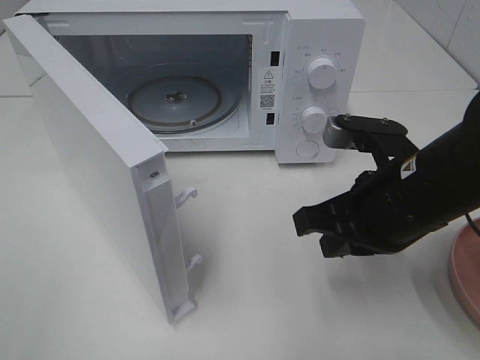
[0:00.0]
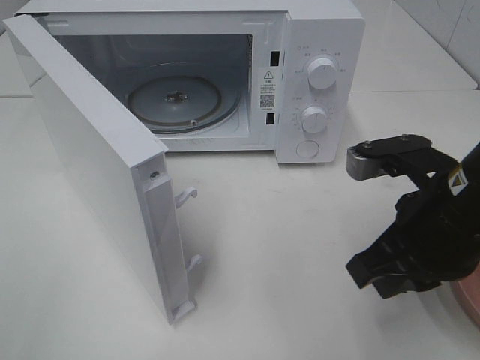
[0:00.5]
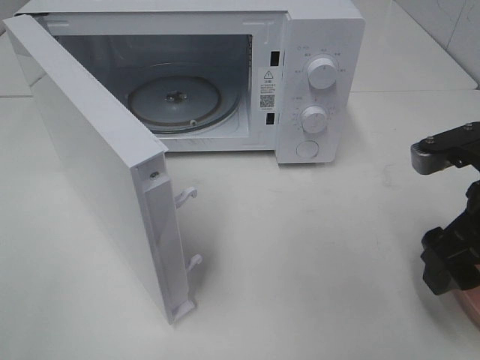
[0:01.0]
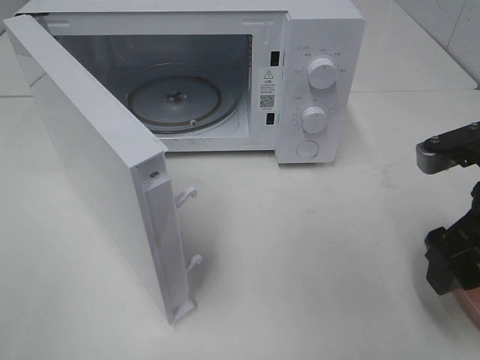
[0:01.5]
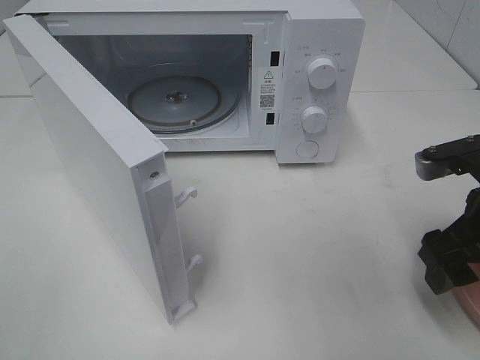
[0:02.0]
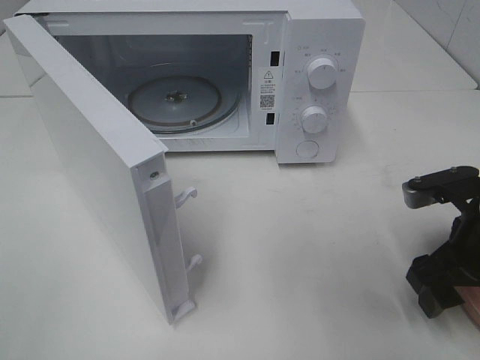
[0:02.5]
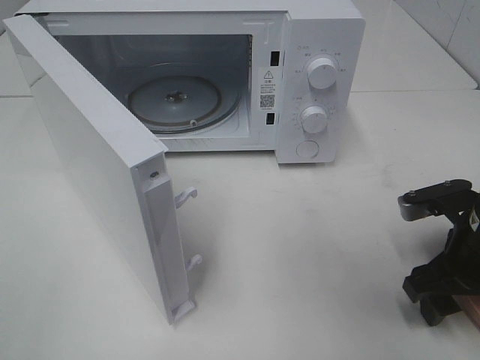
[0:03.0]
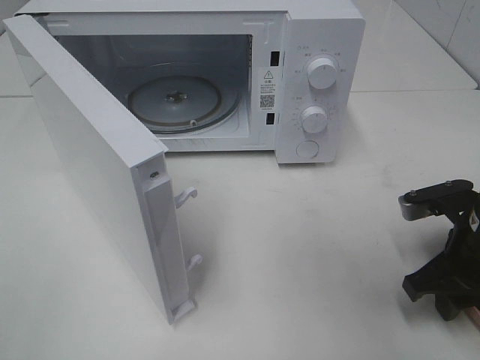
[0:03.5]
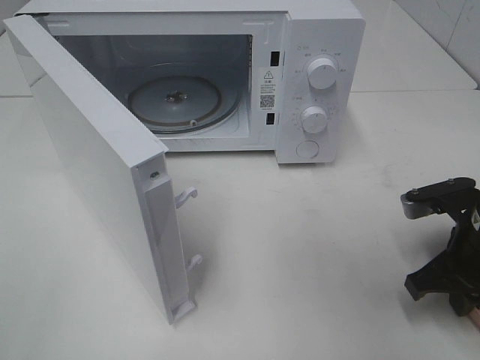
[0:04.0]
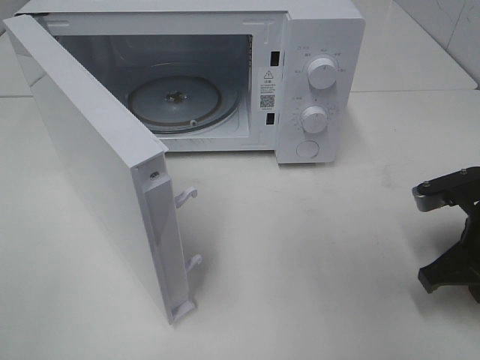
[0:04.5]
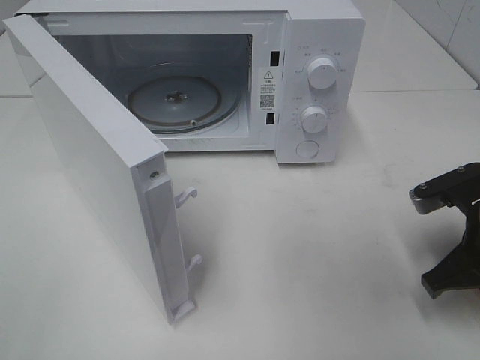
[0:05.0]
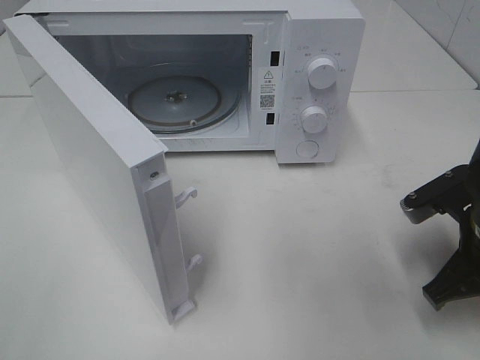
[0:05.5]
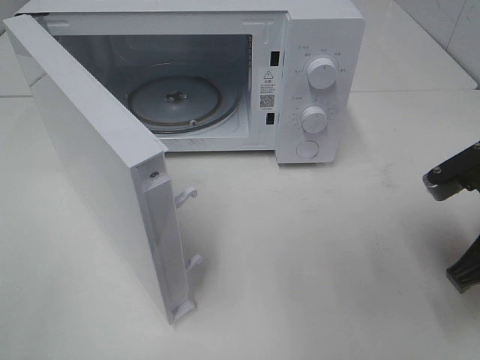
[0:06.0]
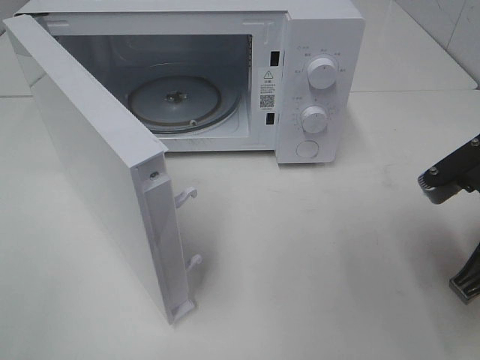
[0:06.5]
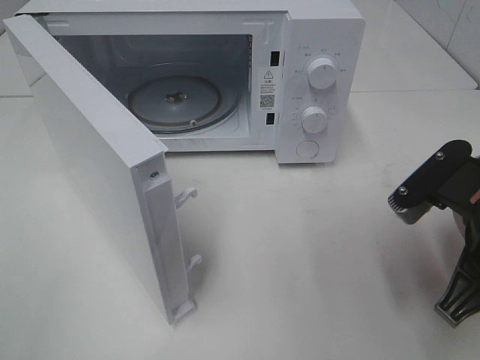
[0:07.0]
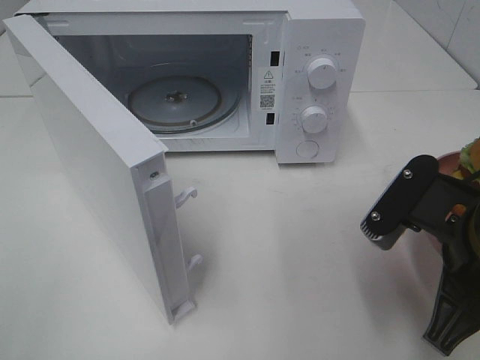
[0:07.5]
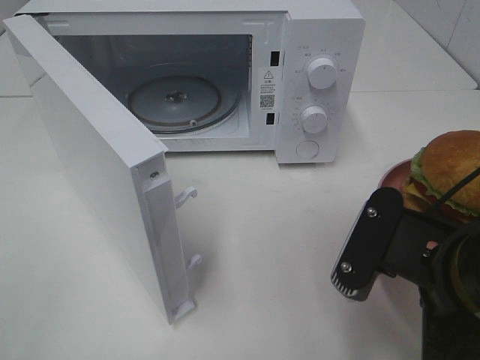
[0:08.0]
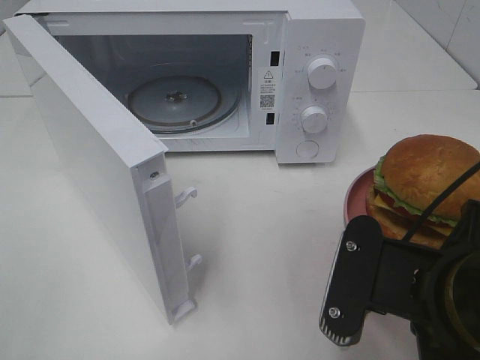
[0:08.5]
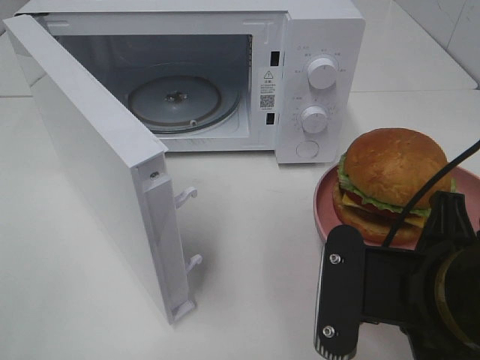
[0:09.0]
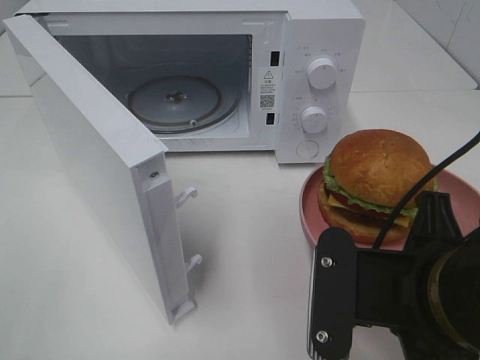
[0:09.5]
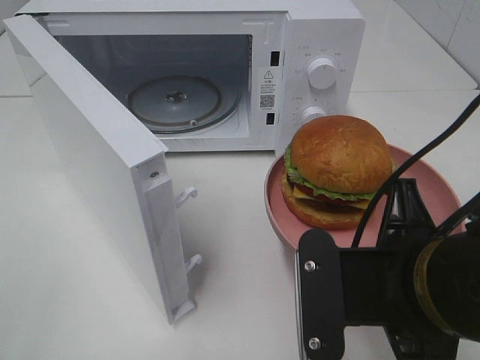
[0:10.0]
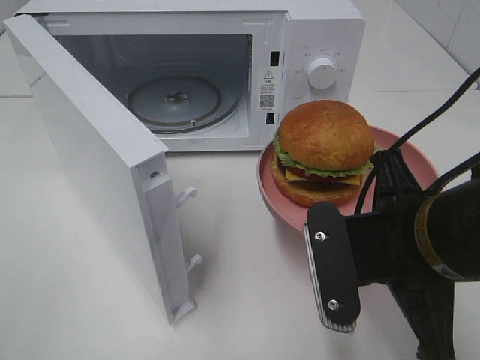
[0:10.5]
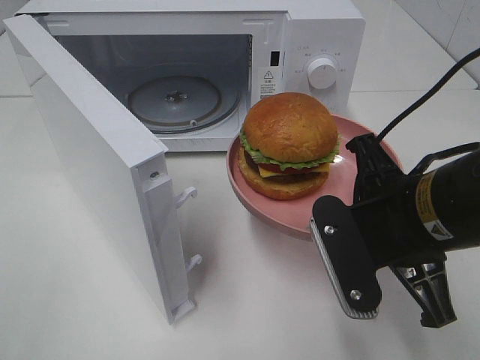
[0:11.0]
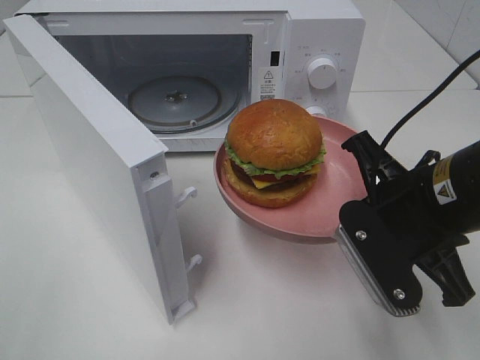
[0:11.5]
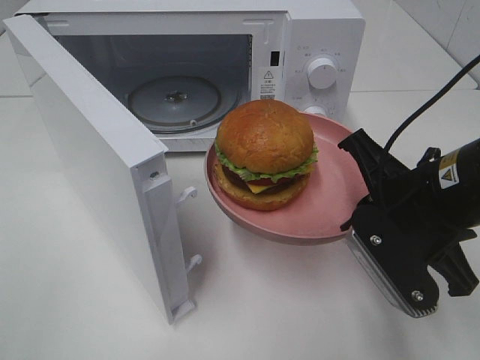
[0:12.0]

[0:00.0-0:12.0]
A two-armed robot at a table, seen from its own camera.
Task of the whole recording: Heat the burger.
Step, 0:00.0 to 0:04.0: Right hand: grab the plate with the hamburger.
0:00.0 to 0:02.0: The right gripper travels to the right by roughly 10 cm, and opens its fingers.
0:02.0 to 0:04.0: The right gripper moves downward, some 5 cm, and closes.
0:04.0 to 0:06.0: The right gripper moves upward, approximately 5 cm.
0:06.0 to 0:08.0: The right gripper is displaced to the left and backward by about 10 cm.
0:10.0 to 0:12.0: The right gripper heads forward, covering approximately 10 cm.

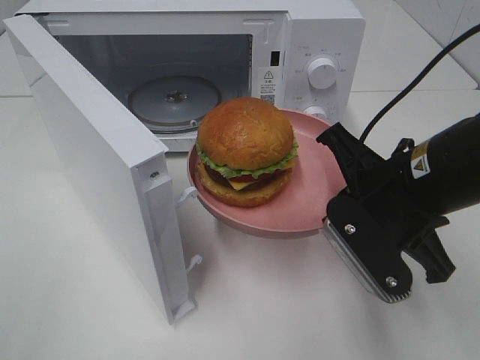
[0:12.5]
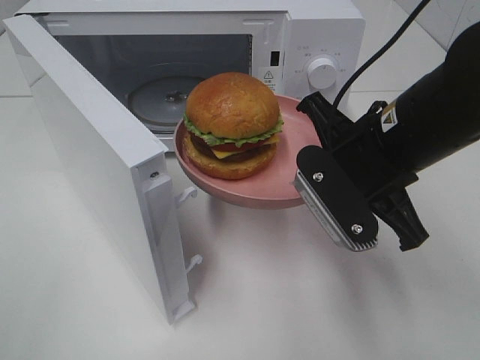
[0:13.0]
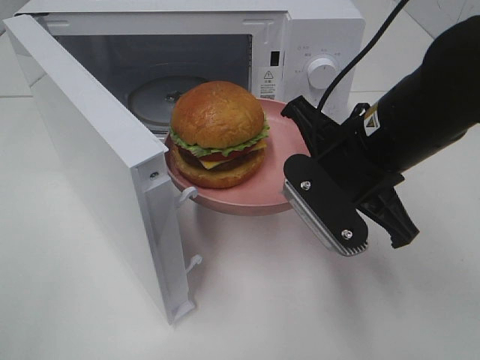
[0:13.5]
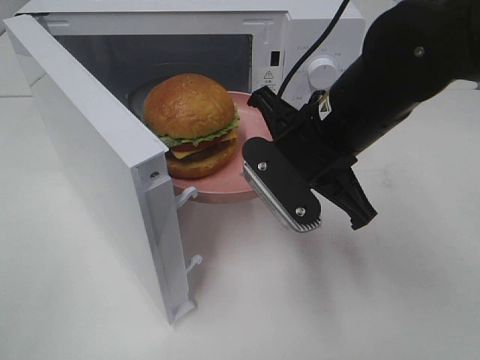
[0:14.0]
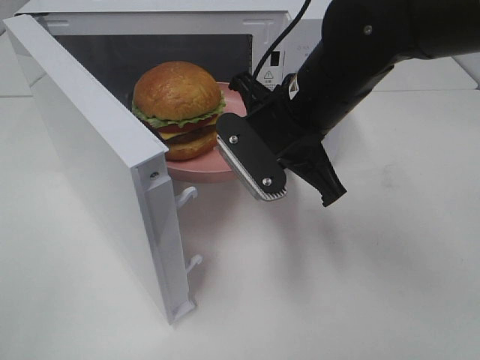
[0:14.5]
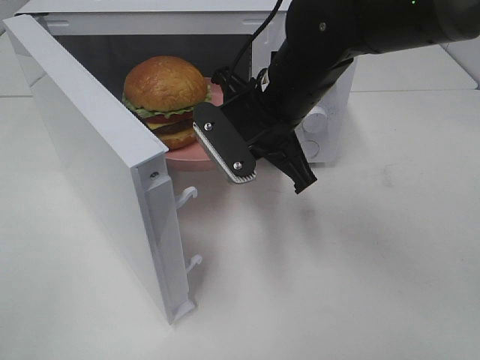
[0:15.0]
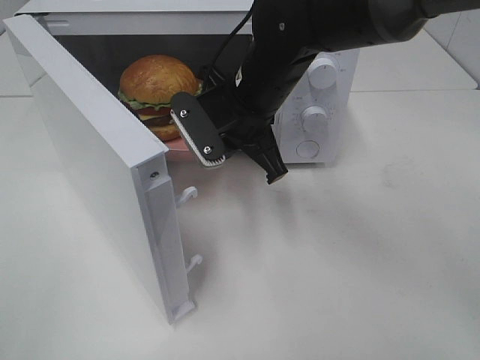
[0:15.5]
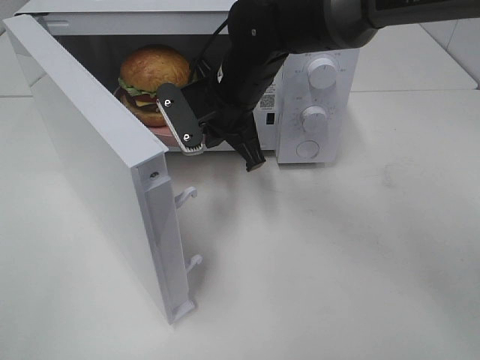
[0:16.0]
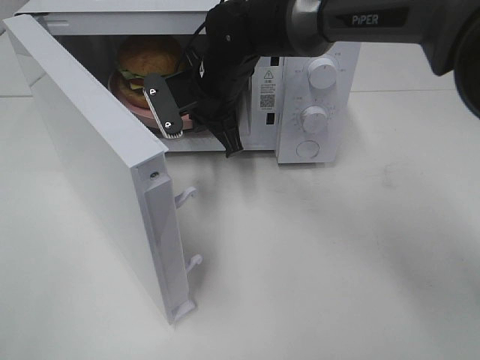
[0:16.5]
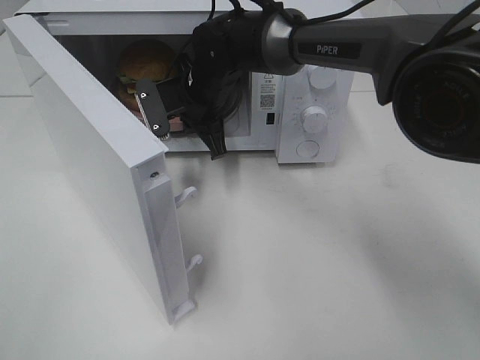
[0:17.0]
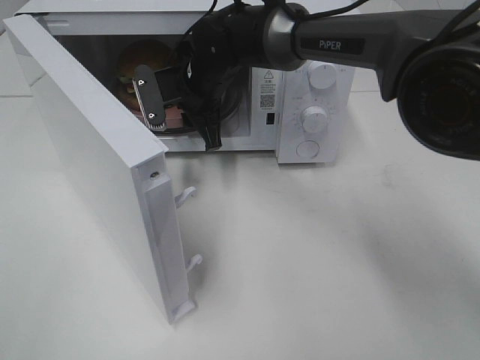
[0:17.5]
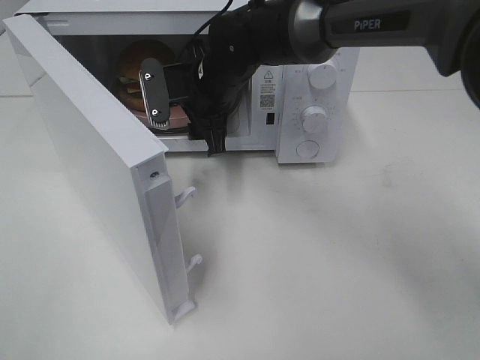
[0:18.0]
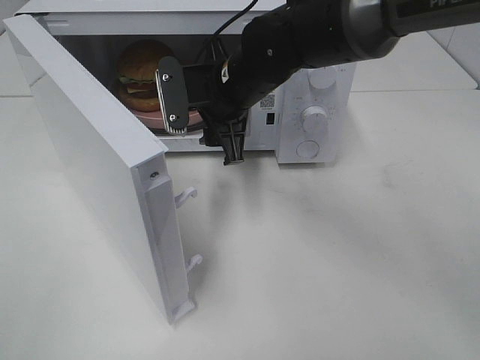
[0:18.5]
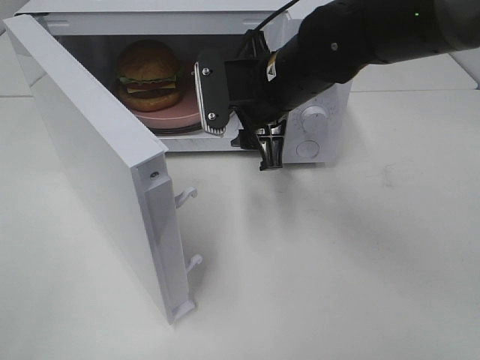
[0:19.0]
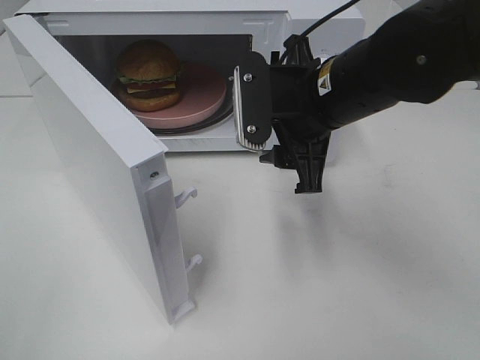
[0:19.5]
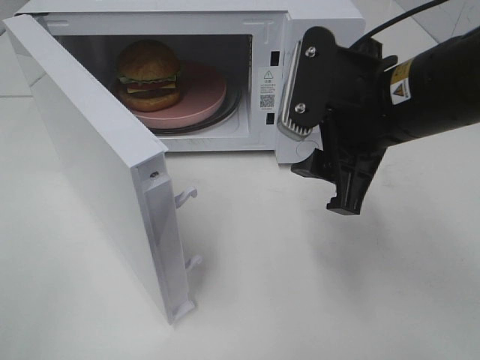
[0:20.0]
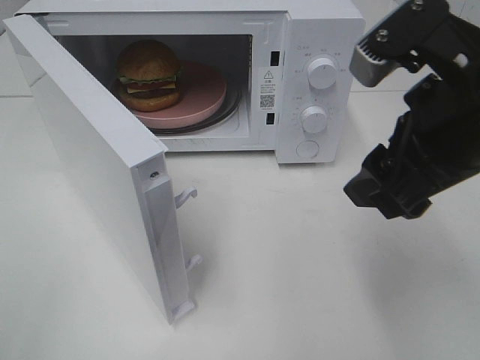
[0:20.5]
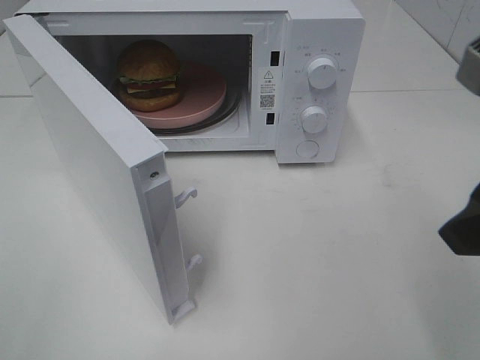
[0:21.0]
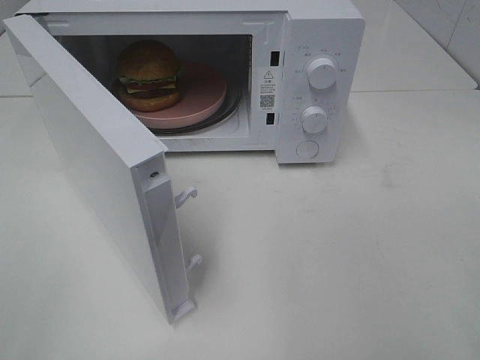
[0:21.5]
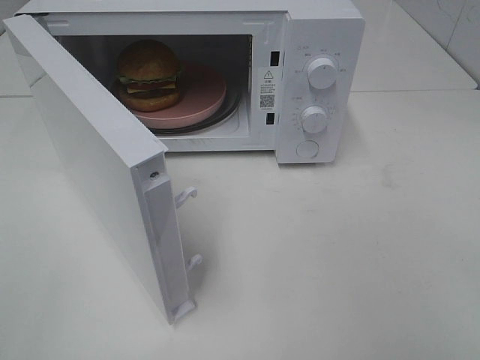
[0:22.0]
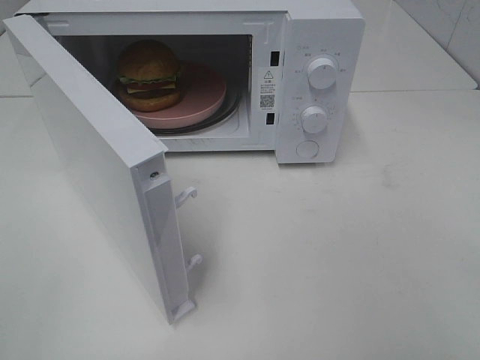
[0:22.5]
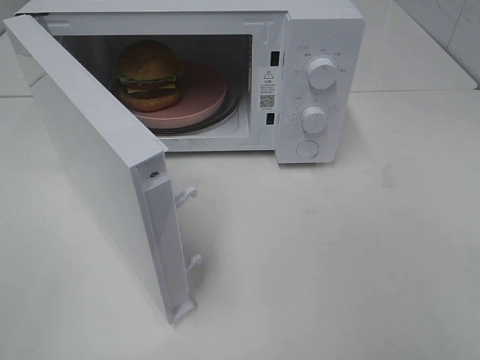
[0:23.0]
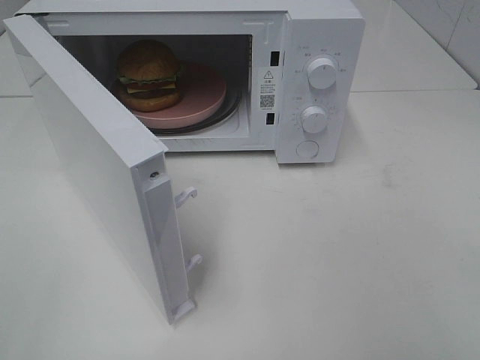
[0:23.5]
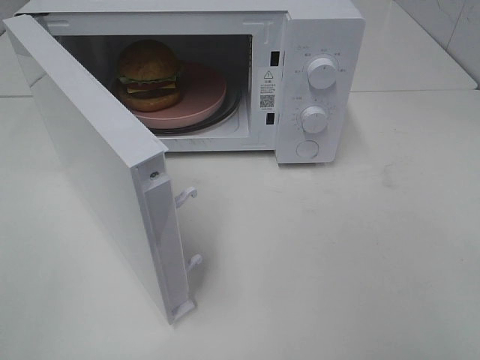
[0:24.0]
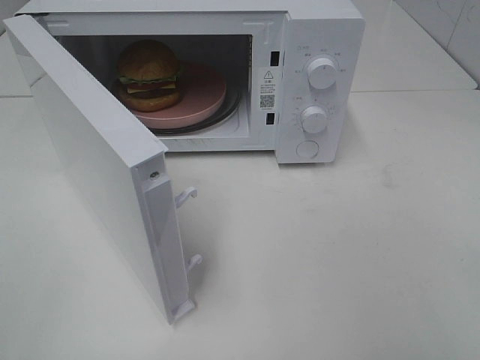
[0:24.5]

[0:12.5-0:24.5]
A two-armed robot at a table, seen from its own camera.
Task of the whole recording: Heat the burger.
Step, 0:12.5 to 0:17.5: Right hand: place the plate in the microwave.
0:12.5 to 0:14.5: The right gripper heads to the left and forward, covering about 10 cm.
0:14.5 to 0:16.5: The right gripper is displaced forward and to the left by approximately 15 cm.
0:16.5 to 0:18.5: The right gripper moves approximately 5 cm, and opens up.
0:18.5 to 0:20.5: The right gripper moves backward, to the right and upward, roughly 25 cm.
0:20.5 to 0:22.5: The right gripper moves backward and to the right, roughly 20 cm.
0:22.5 to 0:24.5: The two grippers keep their place.

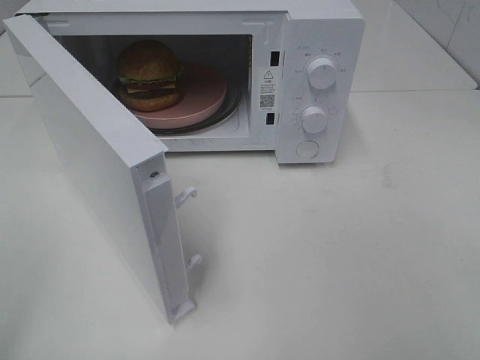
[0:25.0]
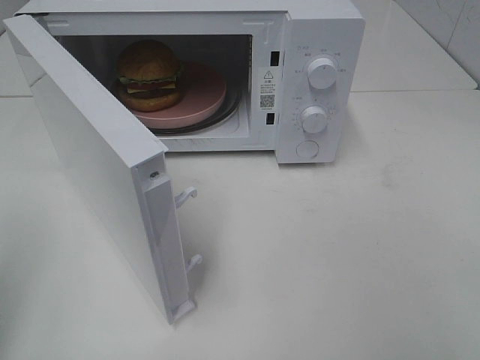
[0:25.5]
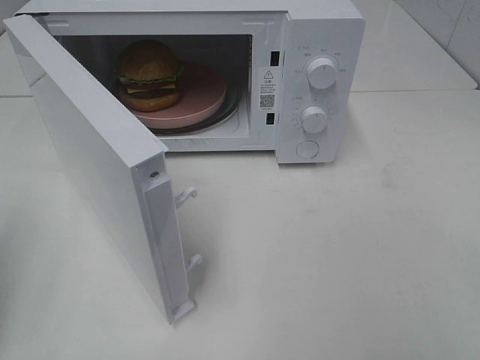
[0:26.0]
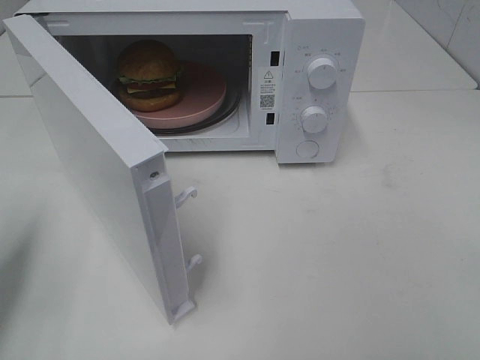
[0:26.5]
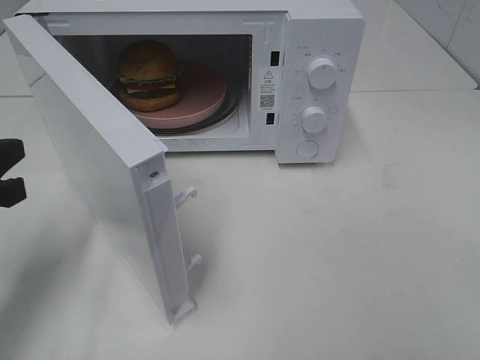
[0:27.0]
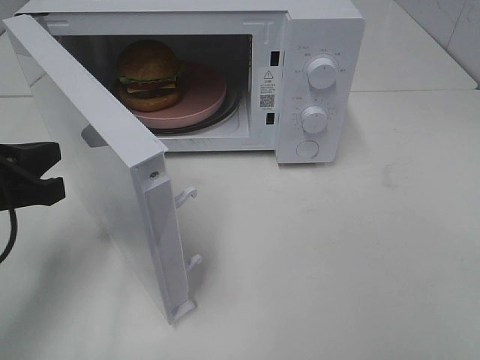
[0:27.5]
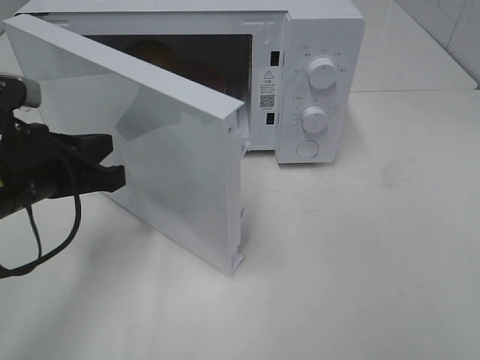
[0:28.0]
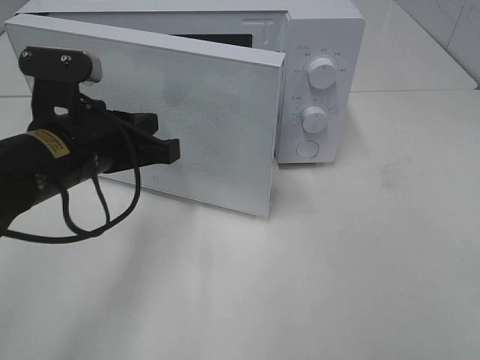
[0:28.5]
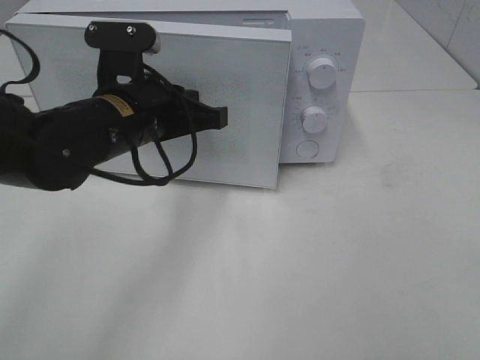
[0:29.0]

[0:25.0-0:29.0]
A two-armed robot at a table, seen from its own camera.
Task of the whole recording: Heat the burger.
0:25.0 to 0:27.0: The left gripper heads forward and downward, covering some 20 cm, and closes up.
0:27.0 to 0:29.0: The left gripper shifts roughly 20 cm to the right and forward.
